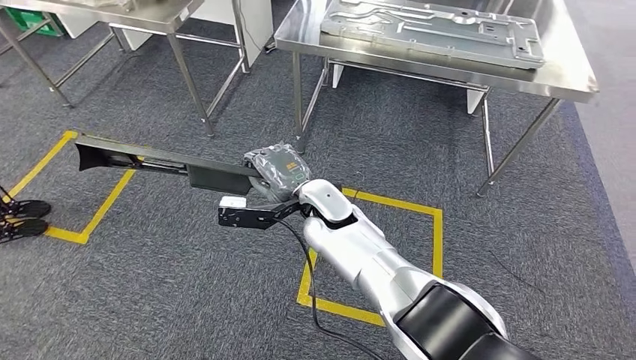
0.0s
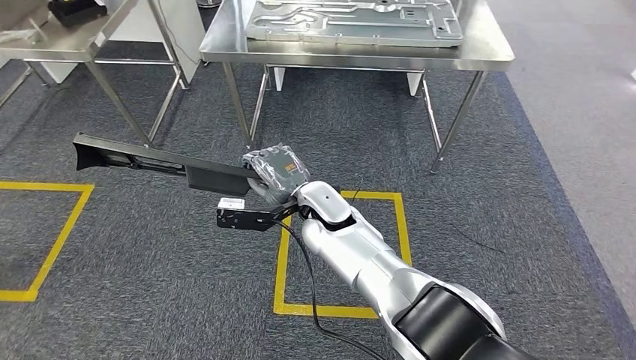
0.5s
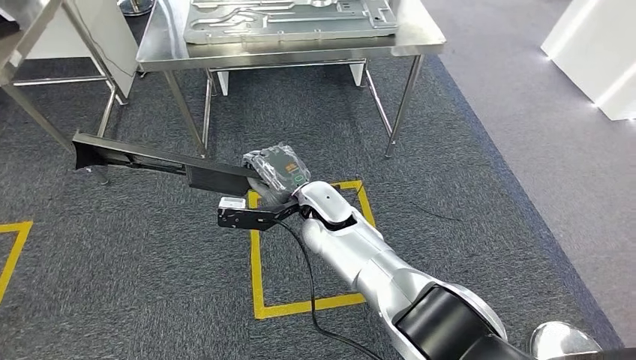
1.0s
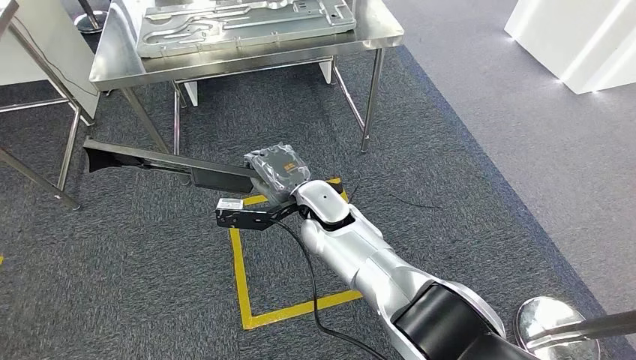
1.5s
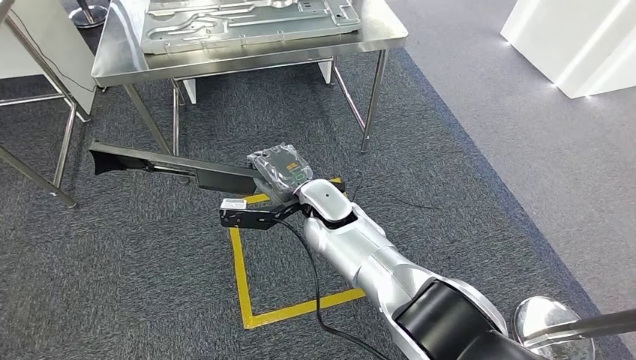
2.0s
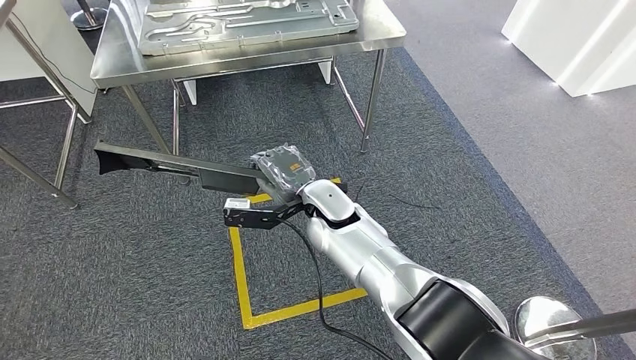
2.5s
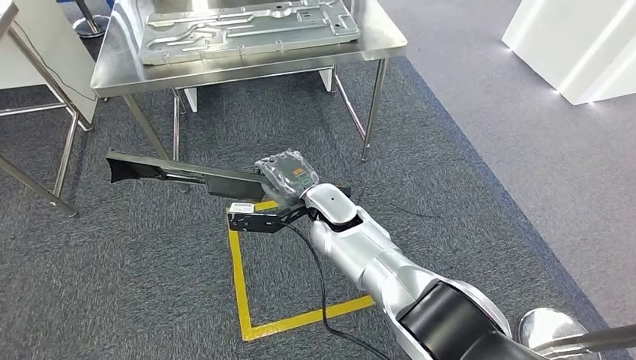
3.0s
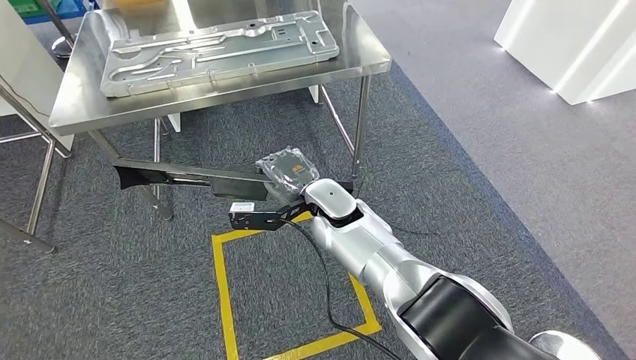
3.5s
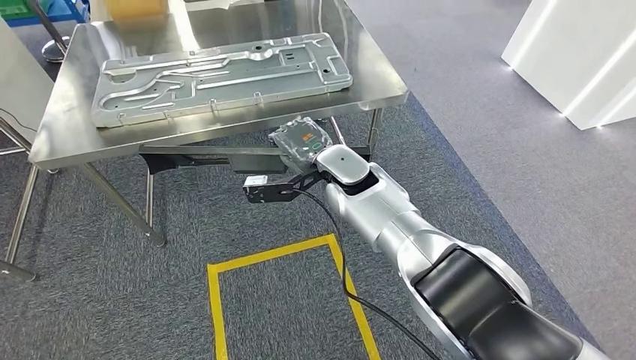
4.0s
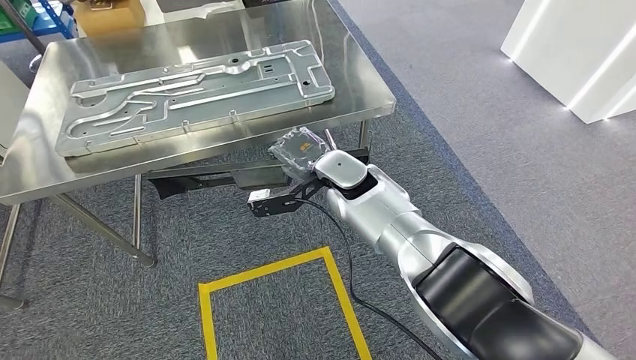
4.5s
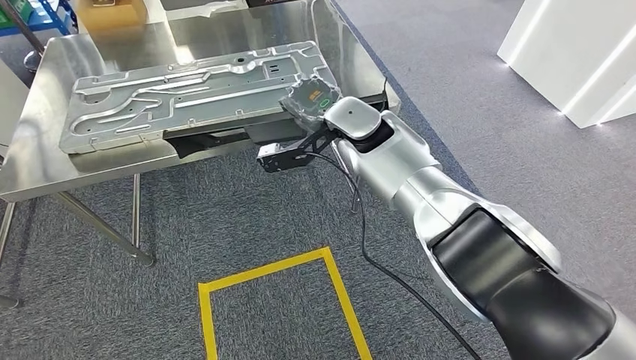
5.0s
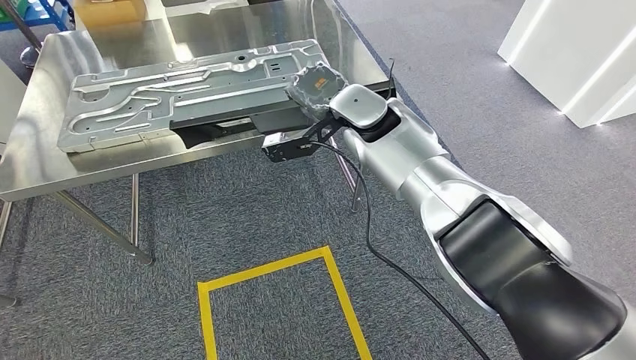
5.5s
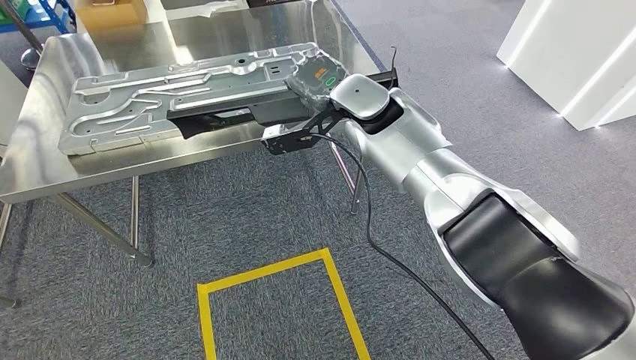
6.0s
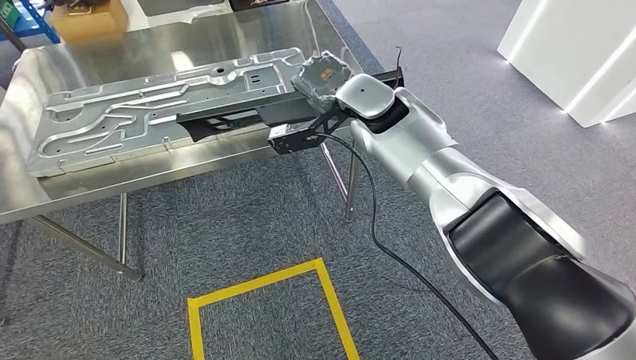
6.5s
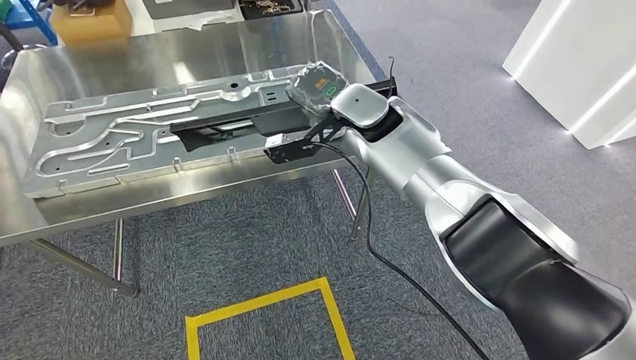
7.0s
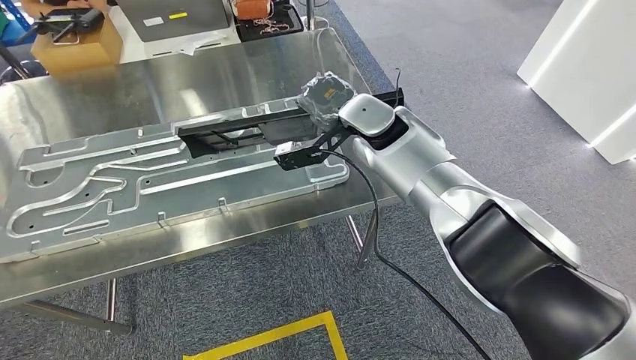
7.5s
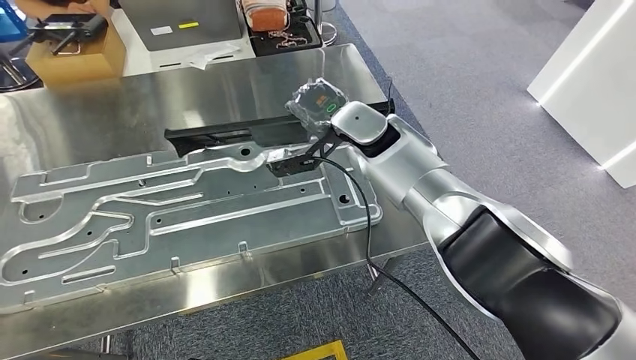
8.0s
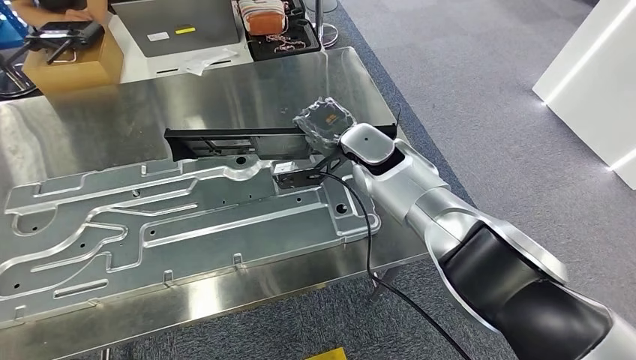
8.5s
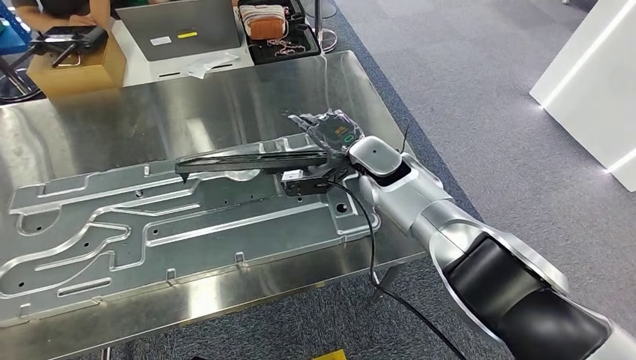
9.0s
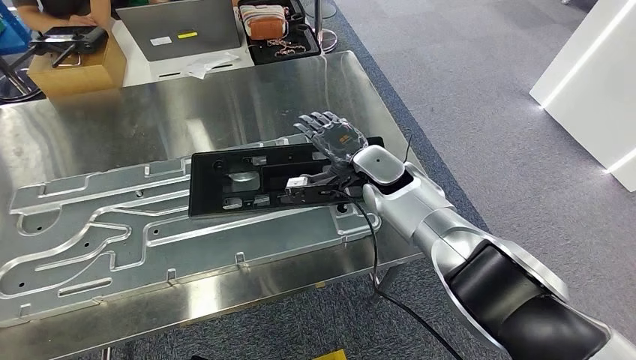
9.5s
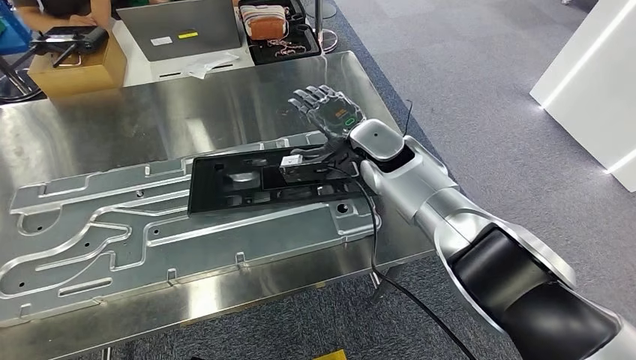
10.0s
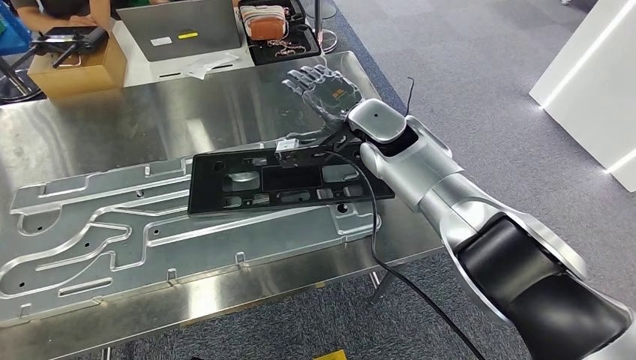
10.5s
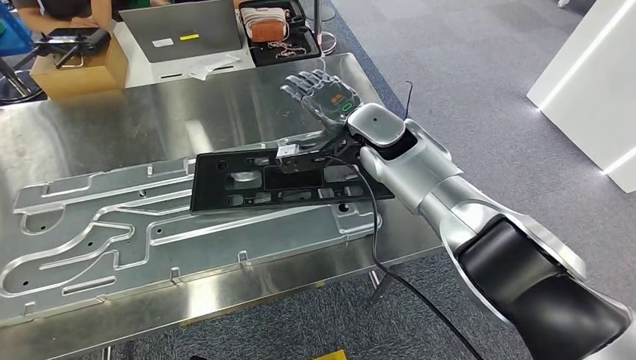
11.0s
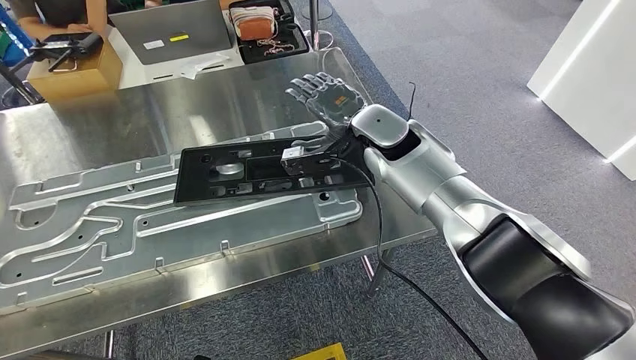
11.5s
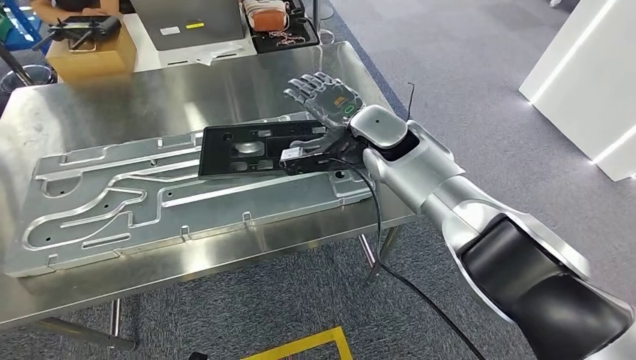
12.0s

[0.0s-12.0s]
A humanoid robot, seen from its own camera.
Step, 0.0s to 6.5s: Move the large material to the workbench.

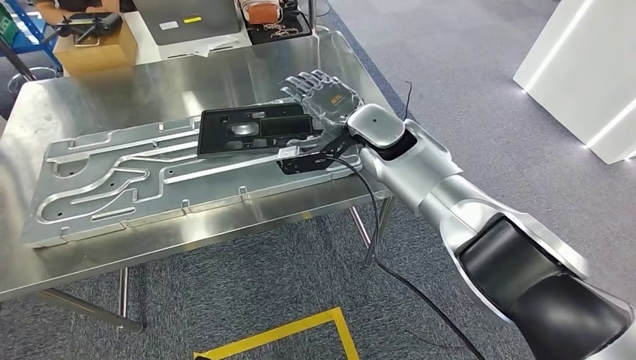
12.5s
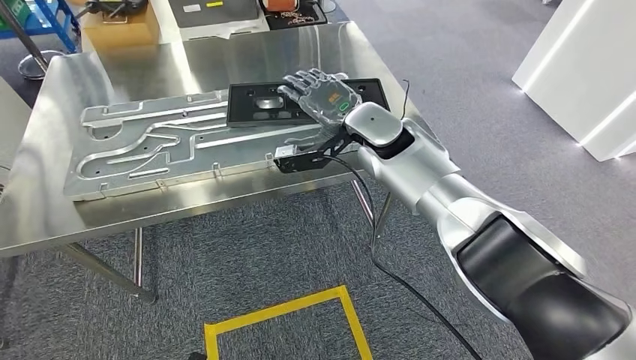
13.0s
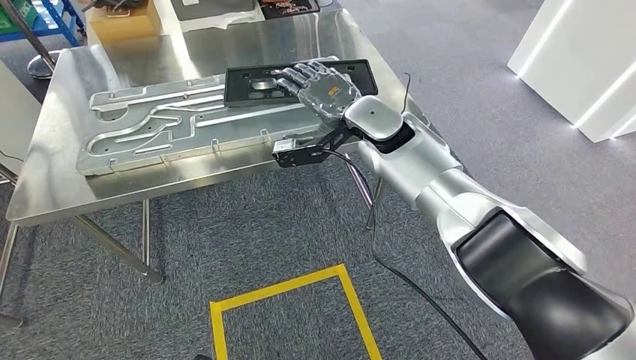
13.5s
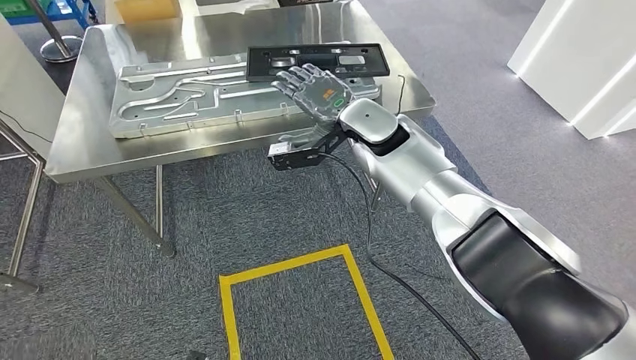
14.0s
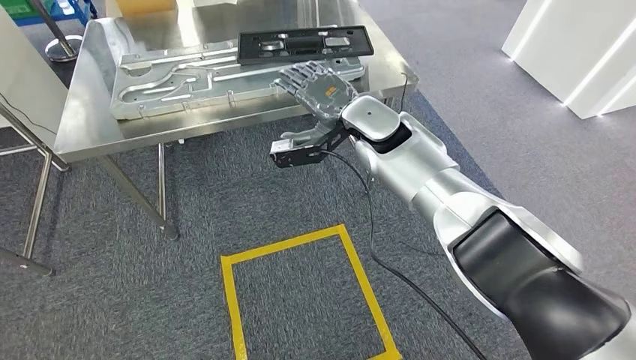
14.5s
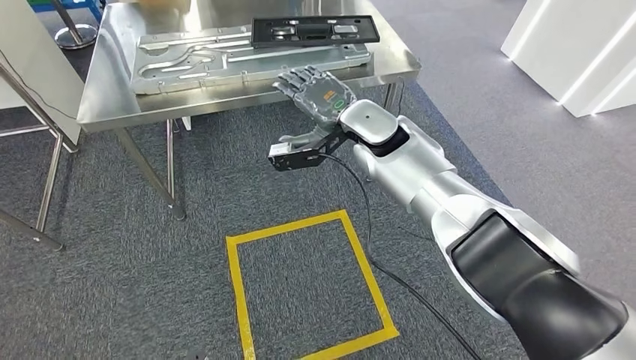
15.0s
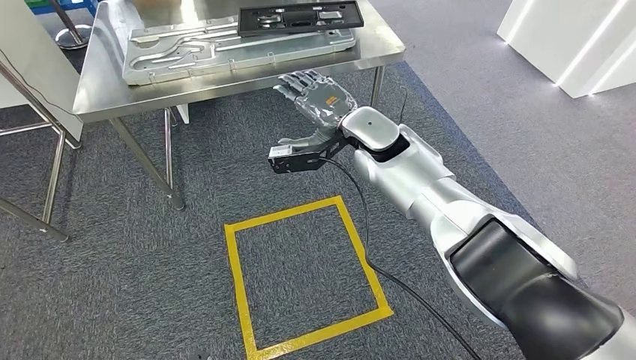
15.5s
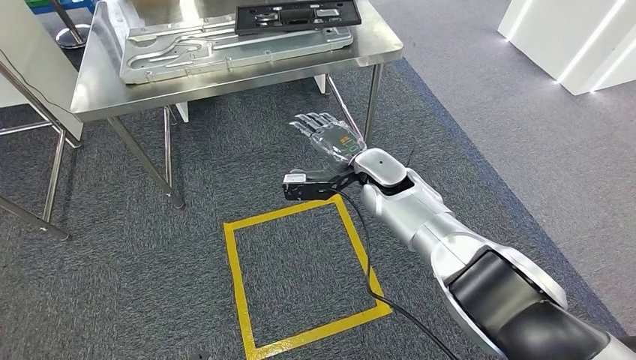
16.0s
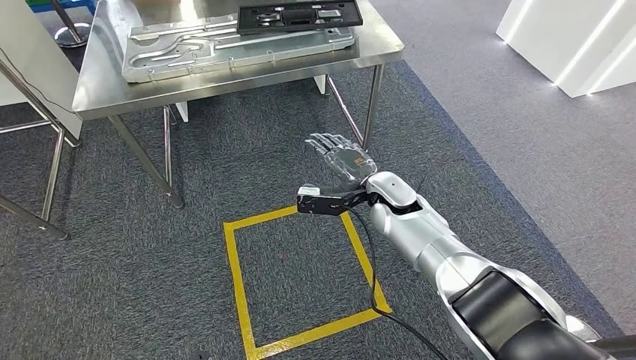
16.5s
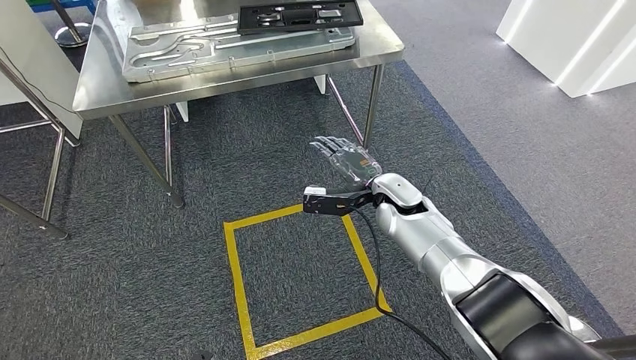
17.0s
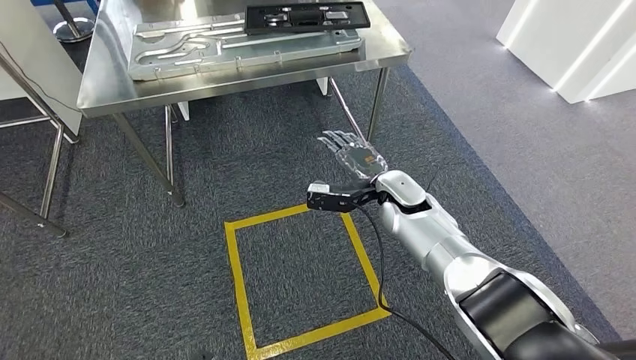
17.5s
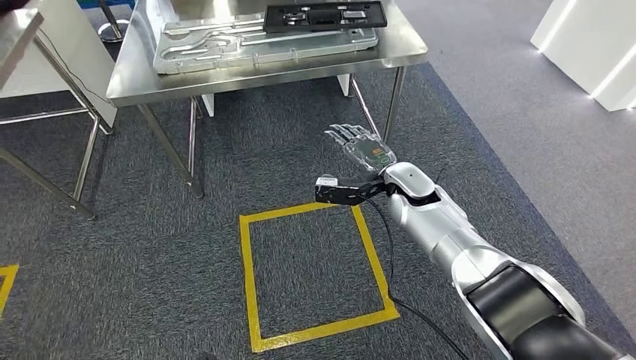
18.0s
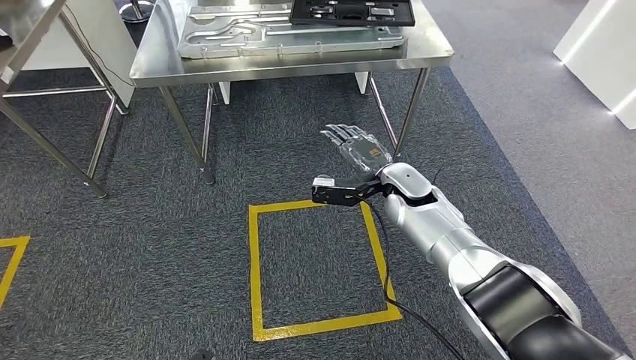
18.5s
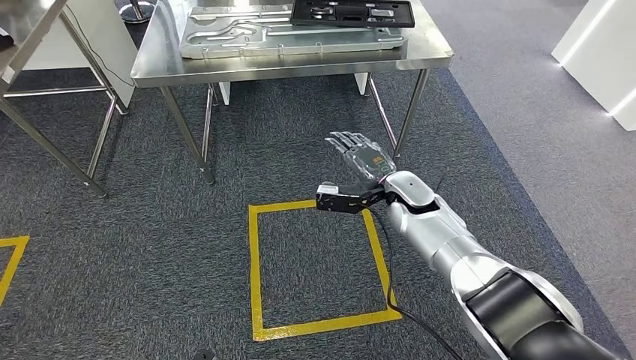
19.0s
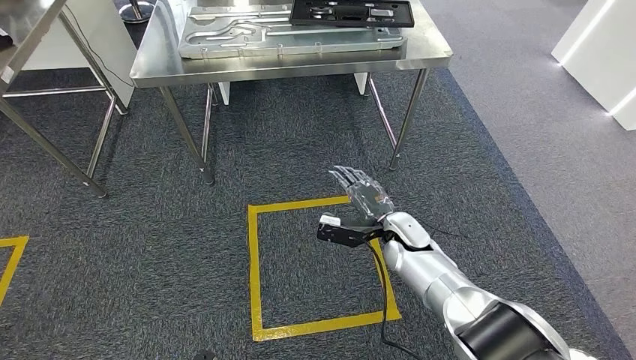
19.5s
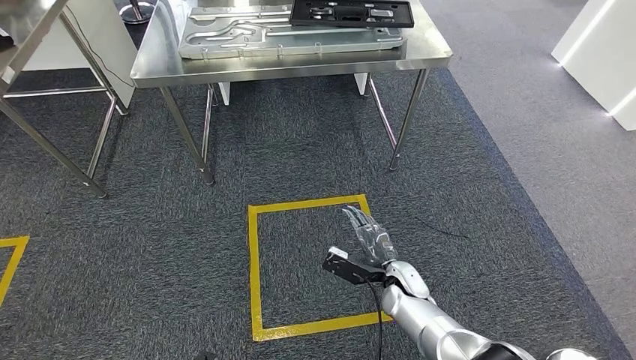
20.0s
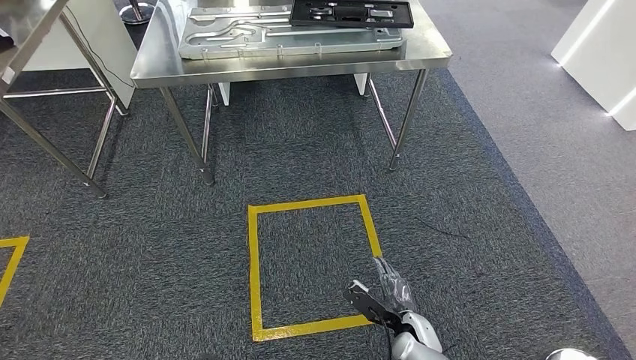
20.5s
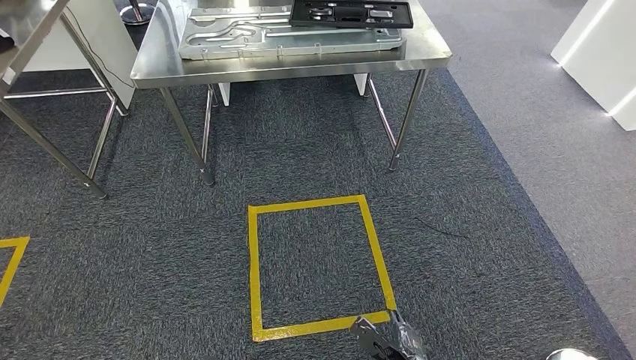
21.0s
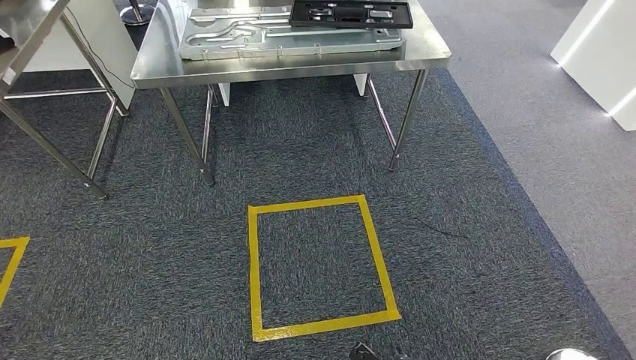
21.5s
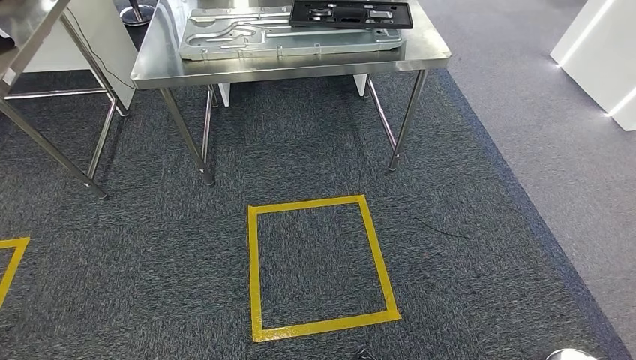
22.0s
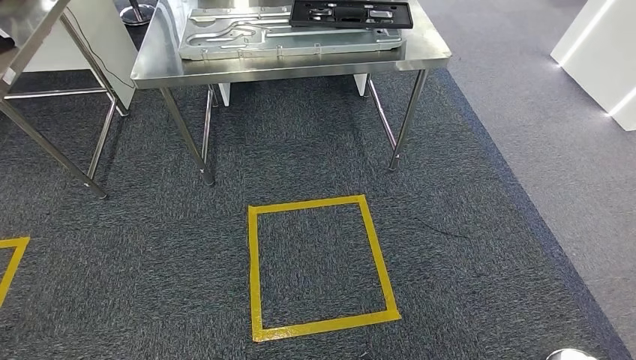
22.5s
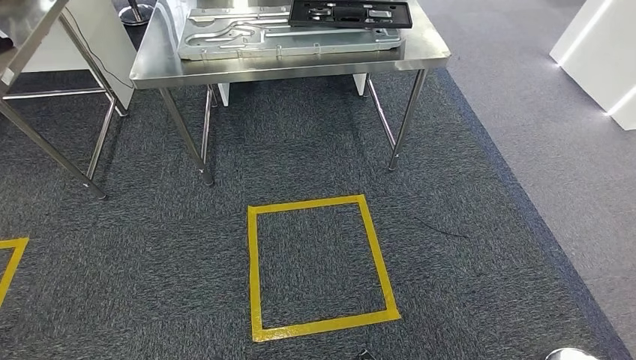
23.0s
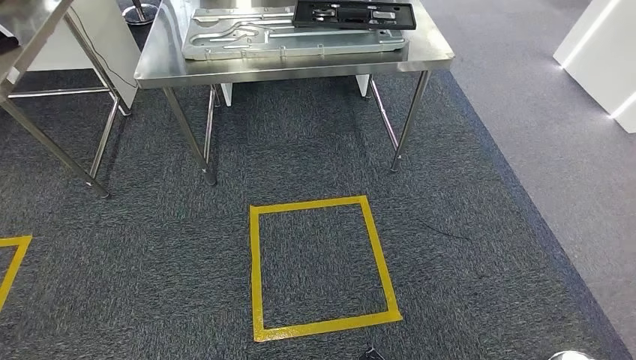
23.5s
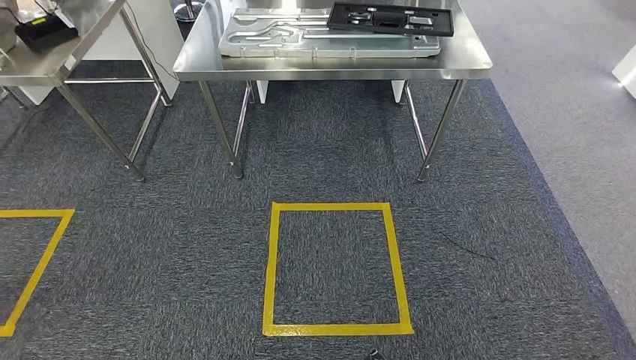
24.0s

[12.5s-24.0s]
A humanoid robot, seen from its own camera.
18.5s to 20.0s: The right hand heads downward and backward, covering about 20 cm.
20.0s to 22.0s: The right hand travels backward and downward by roughly 25 cm.
